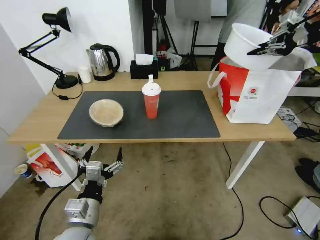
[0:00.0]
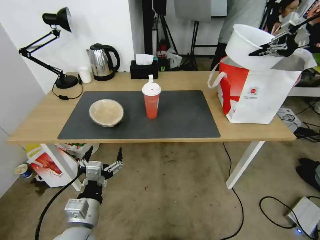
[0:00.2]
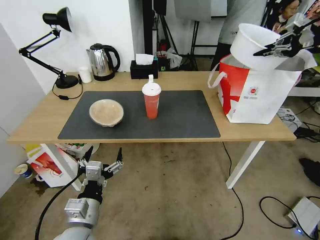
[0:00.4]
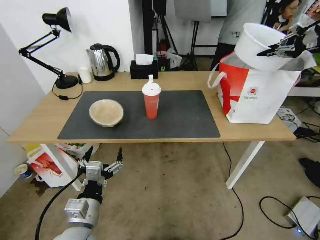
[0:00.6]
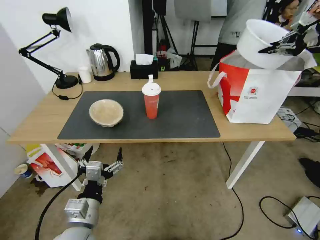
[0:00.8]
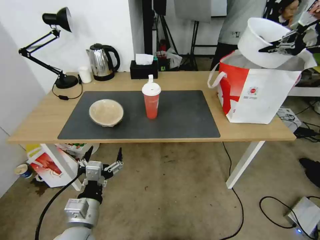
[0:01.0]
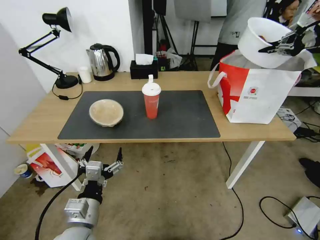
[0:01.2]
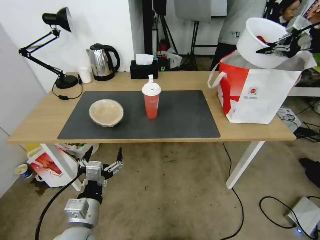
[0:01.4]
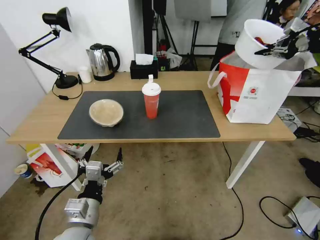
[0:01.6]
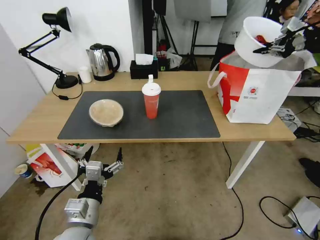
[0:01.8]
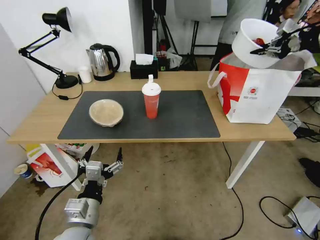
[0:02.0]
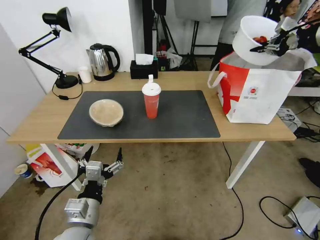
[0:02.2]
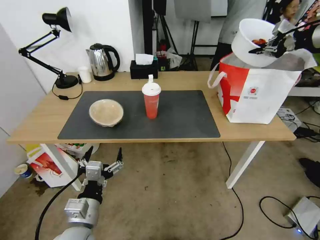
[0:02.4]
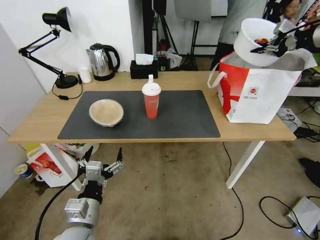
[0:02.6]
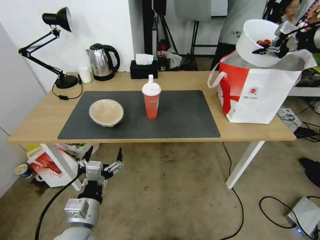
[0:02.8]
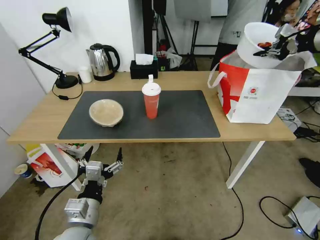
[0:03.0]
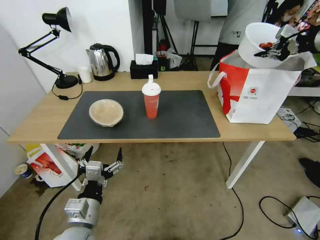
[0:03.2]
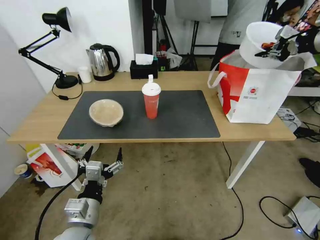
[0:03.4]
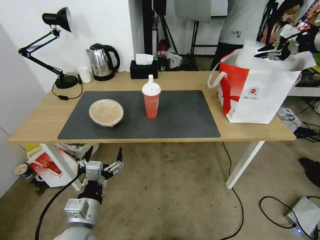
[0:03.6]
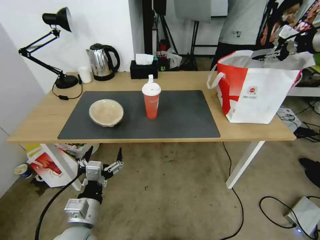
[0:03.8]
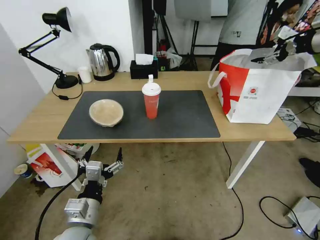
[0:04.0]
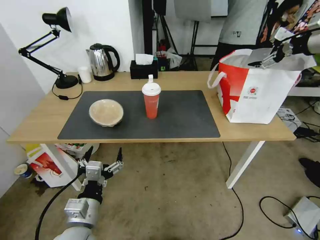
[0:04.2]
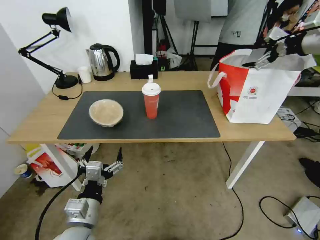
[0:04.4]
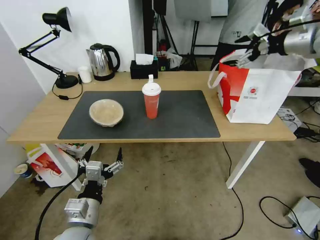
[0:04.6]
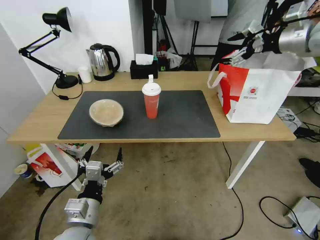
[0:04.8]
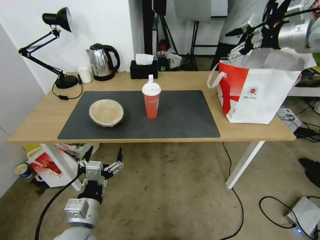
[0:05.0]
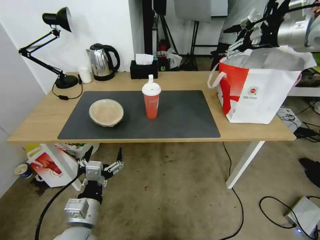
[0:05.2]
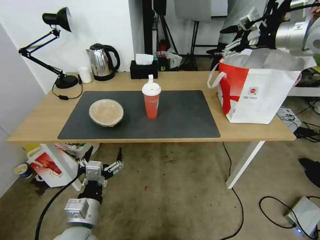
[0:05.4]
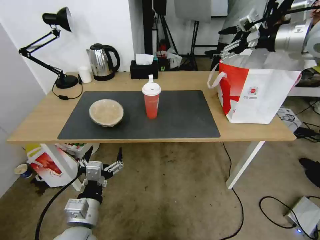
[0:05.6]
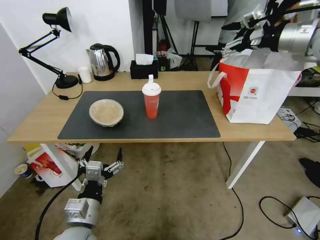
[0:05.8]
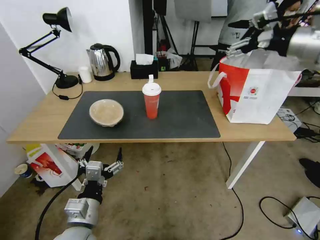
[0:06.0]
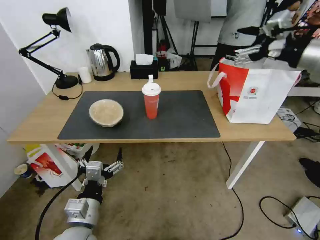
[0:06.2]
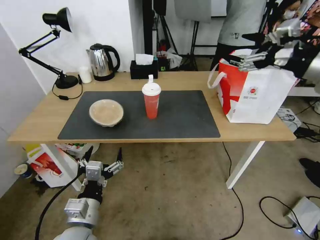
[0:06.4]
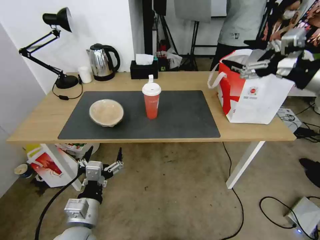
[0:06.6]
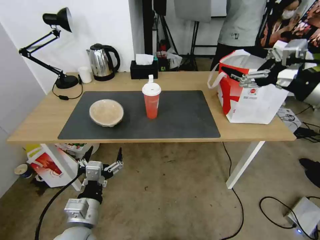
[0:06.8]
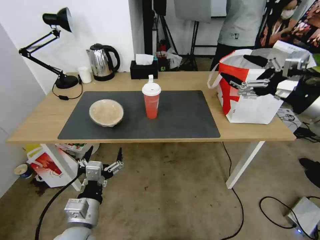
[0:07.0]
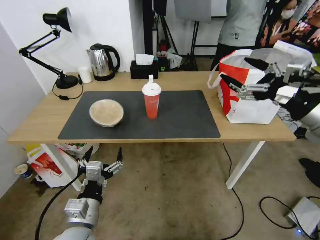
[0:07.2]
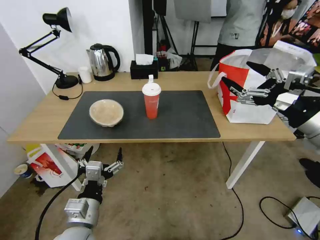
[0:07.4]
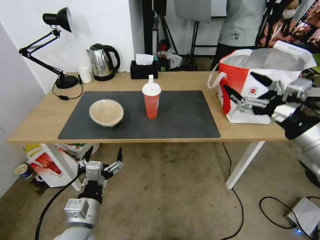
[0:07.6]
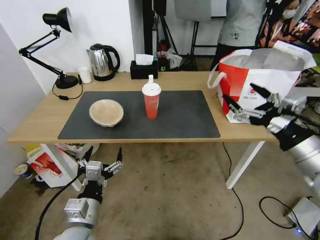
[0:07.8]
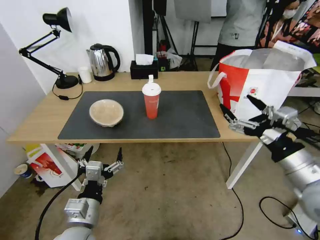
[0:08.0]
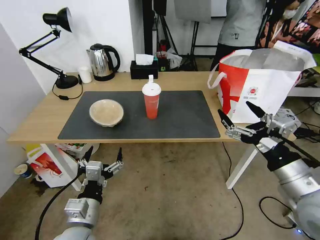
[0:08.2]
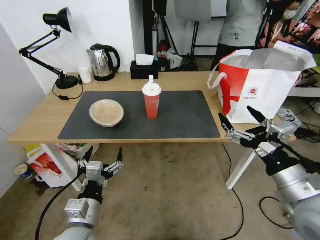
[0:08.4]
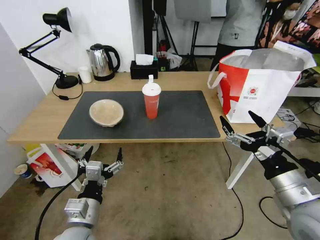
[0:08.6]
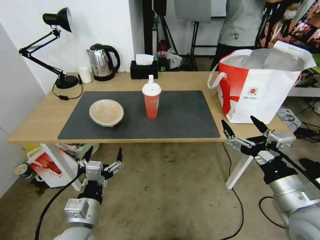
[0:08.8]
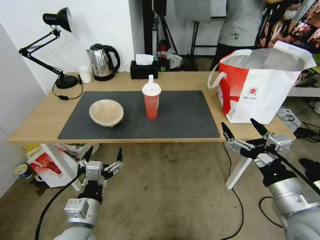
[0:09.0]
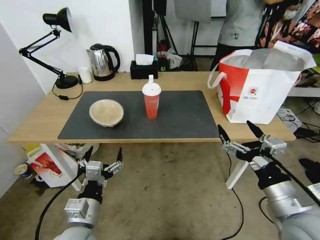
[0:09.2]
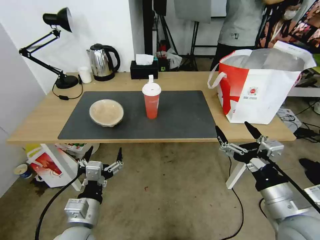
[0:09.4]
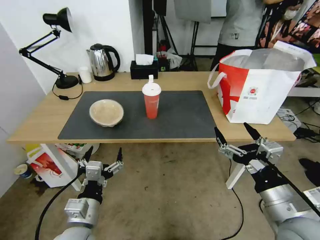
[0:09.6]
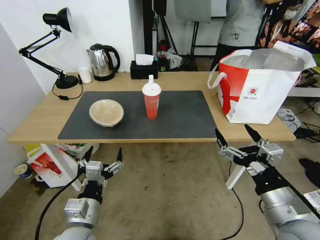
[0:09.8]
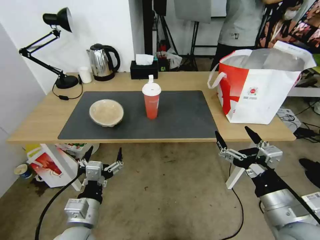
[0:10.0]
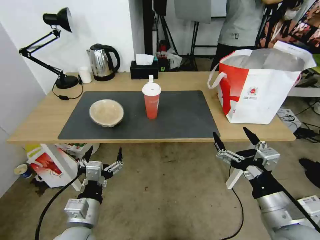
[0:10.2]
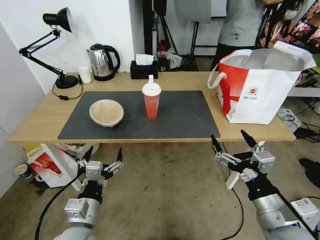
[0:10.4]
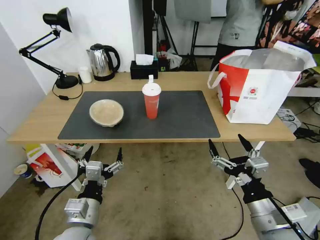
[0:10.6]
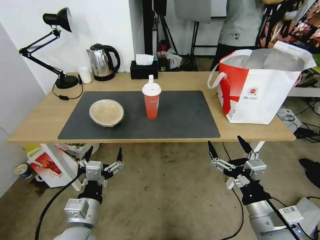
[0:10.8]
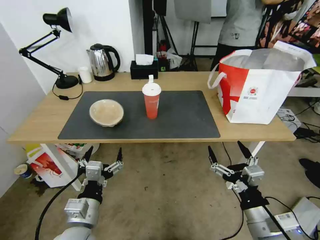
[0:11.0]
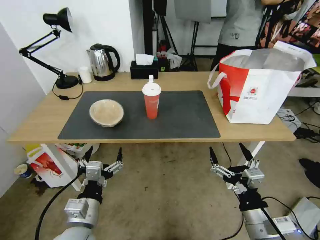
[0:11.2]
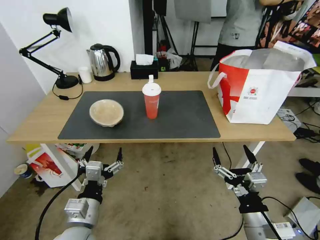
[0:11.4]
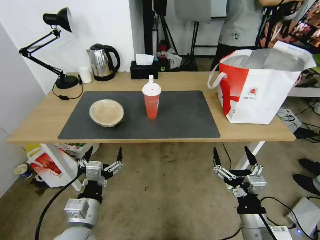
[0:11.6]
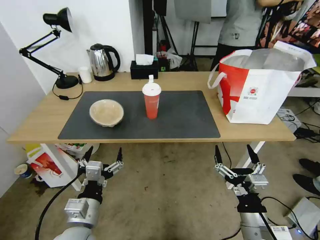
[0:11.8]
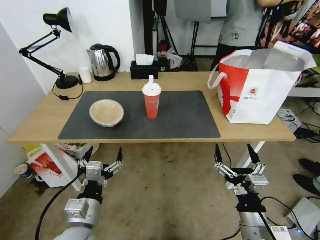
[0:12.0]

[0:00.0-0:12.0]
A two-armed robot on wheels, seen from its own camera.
Task of the whole recording: Pick up the trash from the table and place it into the takeout bag.
0:00.0 to 0:01.6: The grippers make only small movements.
0:01.6 to 0:03.0: The grippers make only small movements.
0:03.0 to 0:04.4: The right gripper opens.
0:04.4 to 0:06.0: The right gripper heads backward and to the left, covering about 15 cm.
0:06.0 to 0:07.6: The right gripper goes approximately 20 cm backward and downward.
0:07.6 to 0:09.0: The right gripper heads downward, backward and to the left, covering approximately 15 cm.
0:09.0 to 0:10.4: The right gripper moves about 5 cm.
0:10.4 to 0:12.0: The right gripper shifts approximately 10 cm downward.

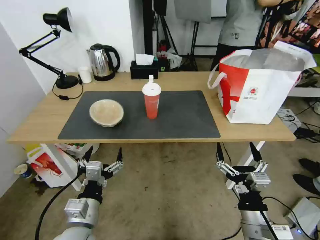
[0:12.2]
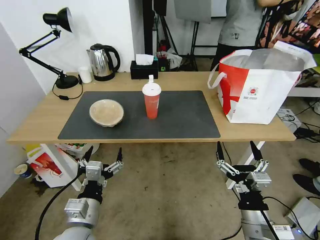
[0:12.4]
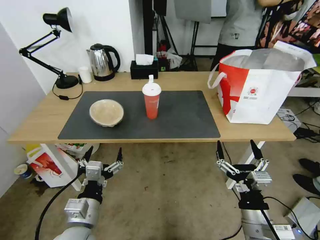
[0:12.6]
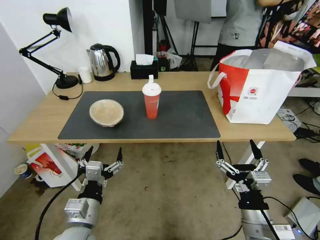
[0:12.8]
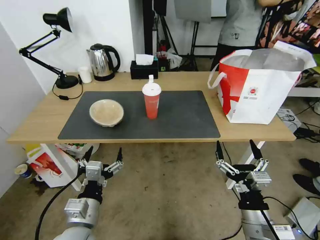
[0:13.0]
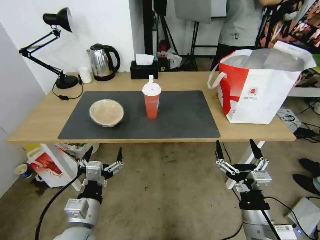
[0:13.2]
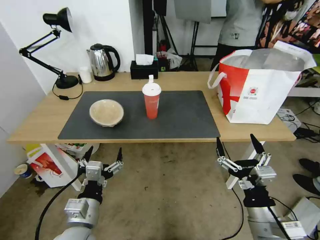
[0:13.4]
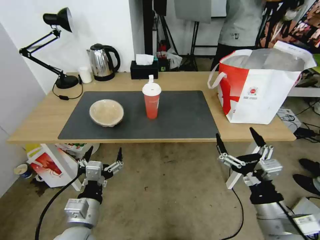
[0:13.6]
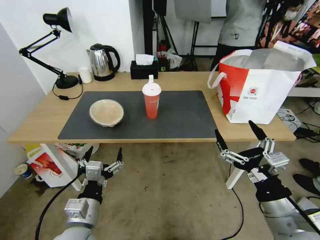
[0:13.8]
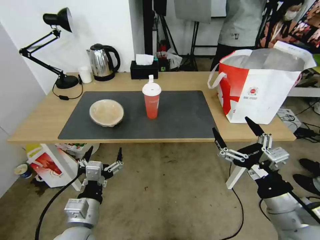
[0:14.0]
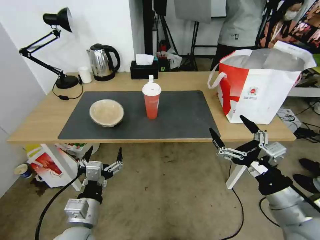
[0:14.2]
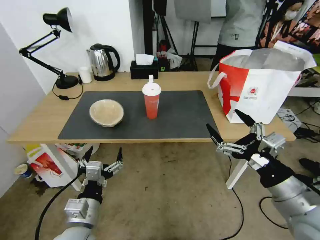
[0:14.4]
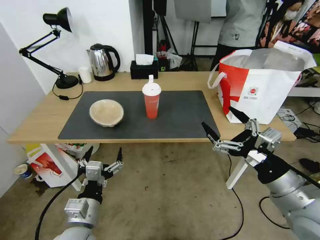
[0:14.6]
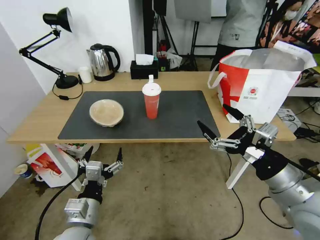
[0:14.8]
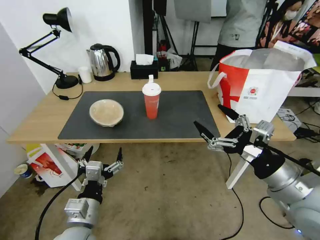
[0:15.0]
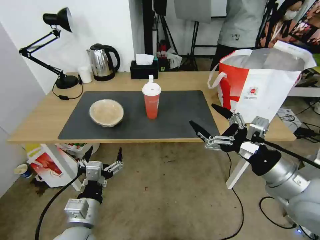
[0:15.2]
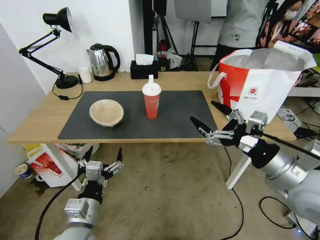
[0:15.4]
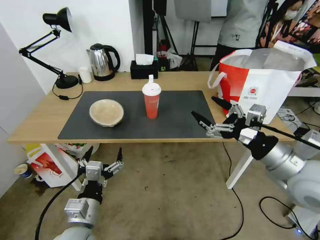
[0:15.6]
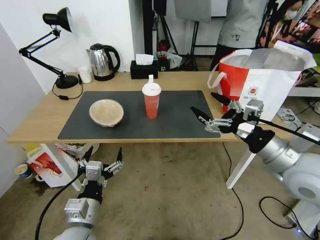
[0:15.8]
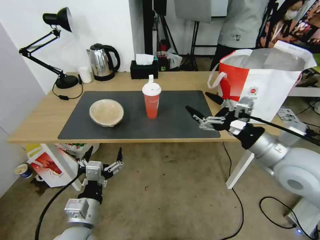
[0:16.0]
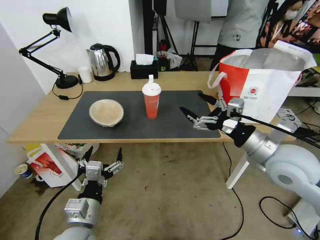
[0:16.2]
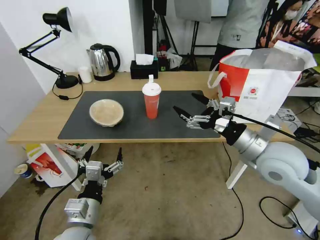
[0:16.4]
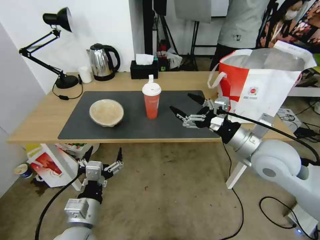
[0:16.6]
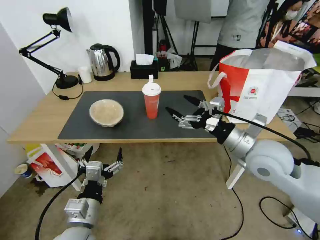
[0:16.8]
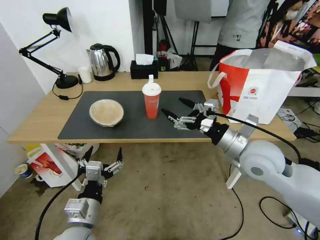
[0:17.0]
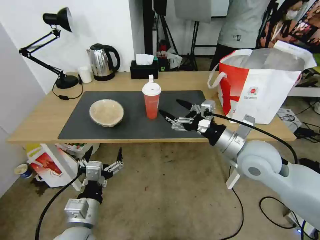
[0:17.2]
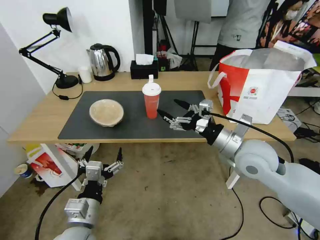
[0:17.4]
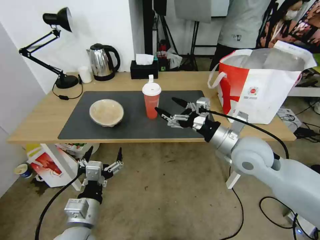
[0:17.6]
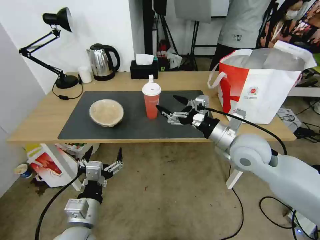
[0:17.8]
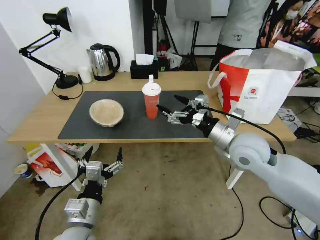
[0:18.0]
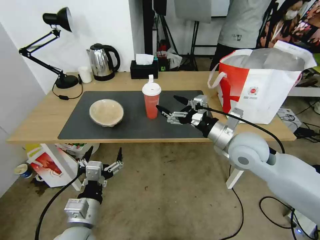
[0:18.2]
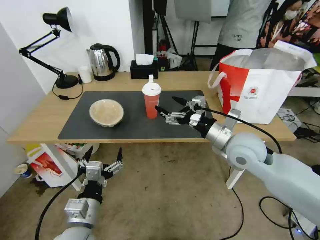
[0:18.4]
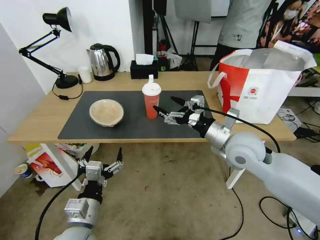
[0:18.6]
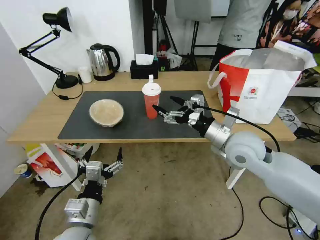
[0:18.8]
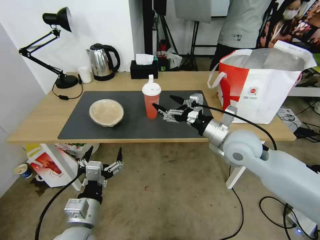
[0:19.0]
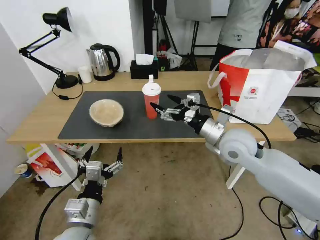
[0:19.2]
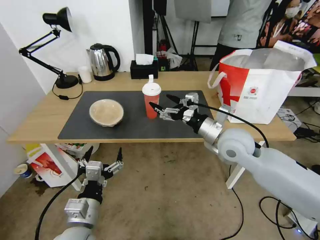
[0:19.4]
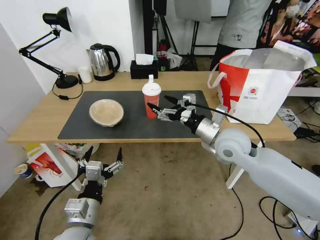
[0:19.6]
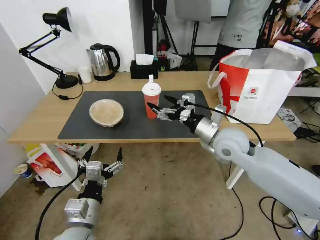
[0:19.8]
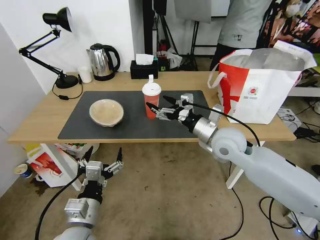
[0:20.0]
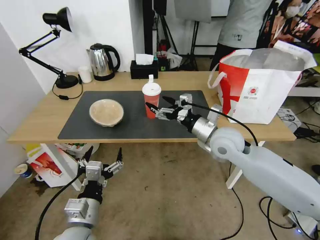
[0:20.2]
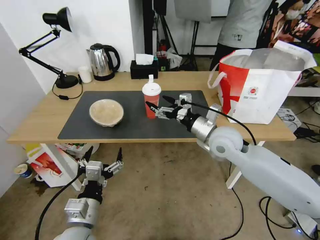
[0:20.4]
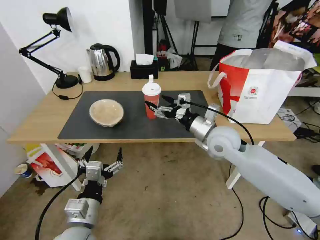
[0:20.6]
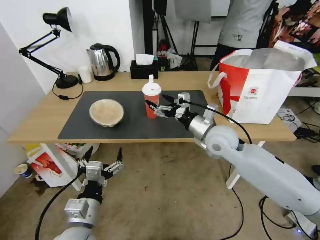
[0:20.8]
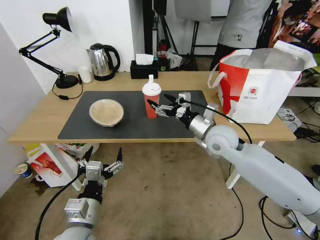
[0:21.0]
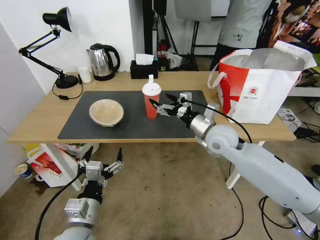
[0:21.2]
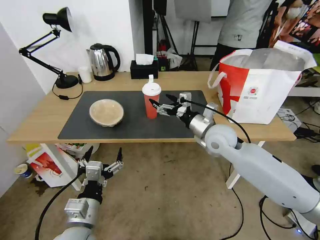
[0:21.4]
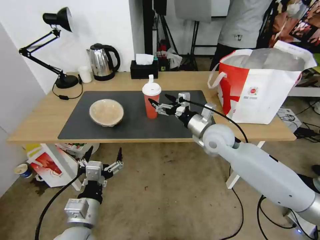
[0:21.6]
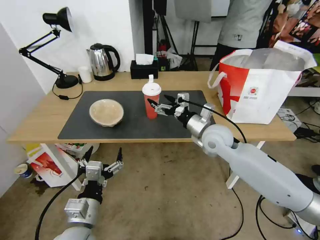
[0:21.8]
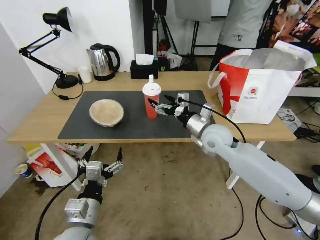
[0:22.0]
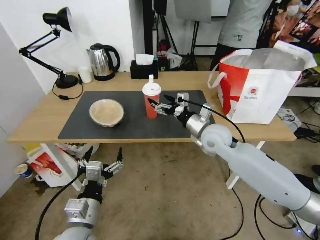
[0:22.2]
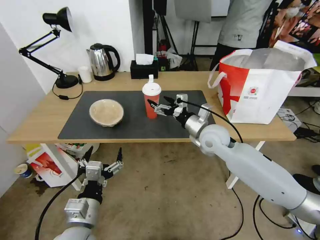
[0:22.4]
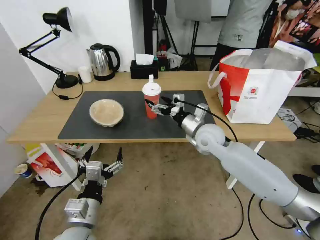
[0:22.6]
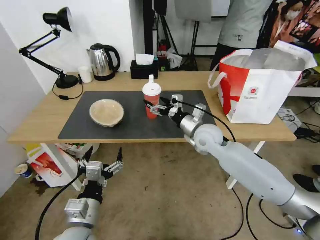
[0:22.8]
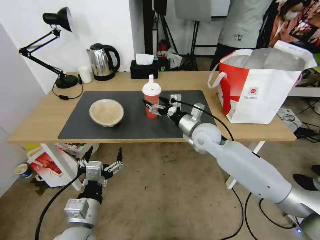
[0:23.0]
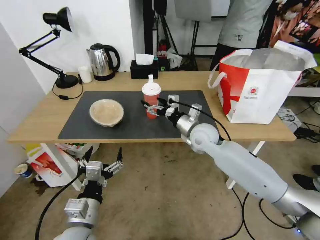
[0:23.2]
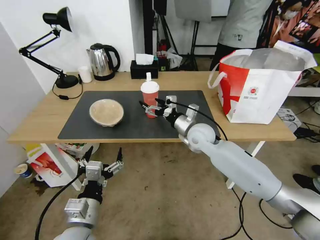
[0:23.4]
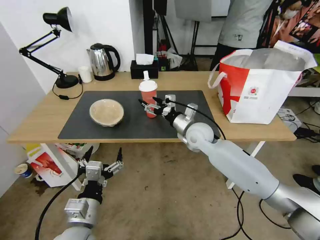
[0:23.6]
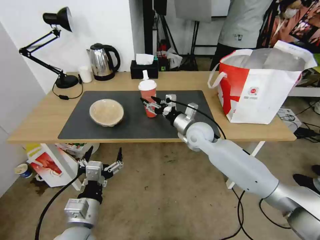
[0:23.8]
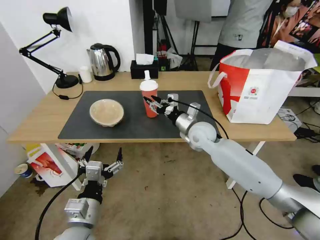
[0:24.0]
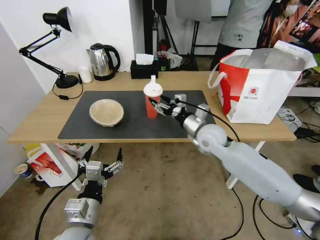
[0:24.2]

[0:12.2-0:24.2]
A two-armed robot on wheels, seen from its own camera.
Task of the whole recording: Pick up the trash from the table and place it into the takeout bag.
0:12.2 to 0:13.8: The right gripper travels upward by some 10 cm.
0:13.8 to 0:15.2: The right gripper is displaced upward and forward by roughly 10 cm.
0:15.2 to 0:16.6: The right gripper is displaced forward by approximately 10 cm.
0:16.6 to 0:18.2: The right gripper changes place by approximately 5 cm.
0:18.2 to 0:19.8: The grippers move only a little.
0:19.8 to 0:21.2: The grippers stay close to where they were, moving slightly.
0:21.2 to 0:22.6: The grippers move only a little.
0:22.6 to 0:24.2: There are only small adjustments of the grippers.
